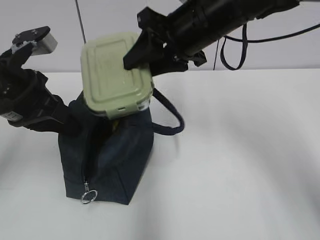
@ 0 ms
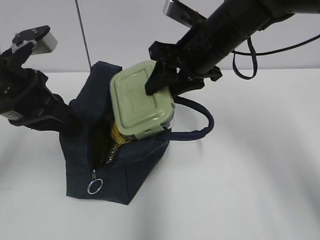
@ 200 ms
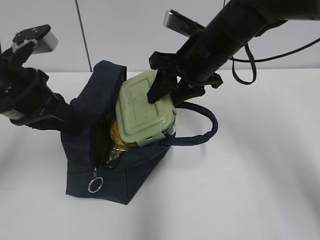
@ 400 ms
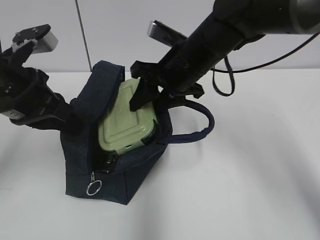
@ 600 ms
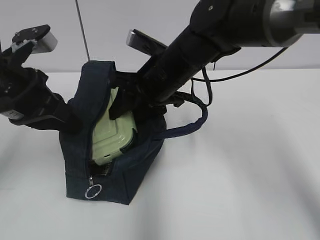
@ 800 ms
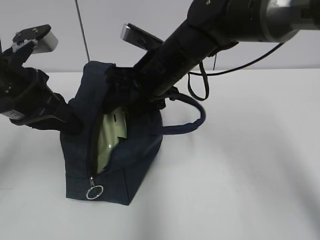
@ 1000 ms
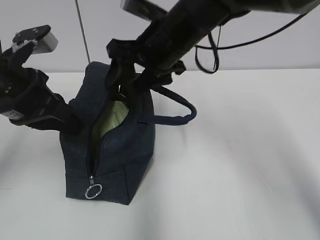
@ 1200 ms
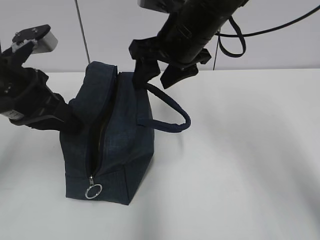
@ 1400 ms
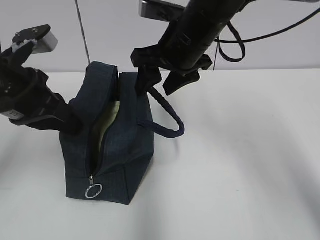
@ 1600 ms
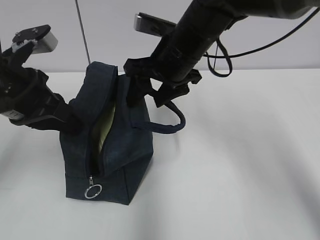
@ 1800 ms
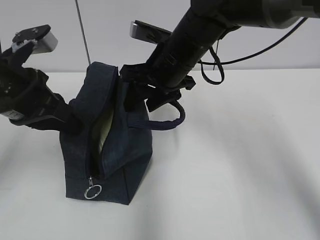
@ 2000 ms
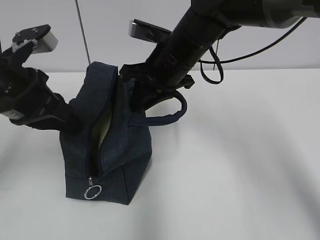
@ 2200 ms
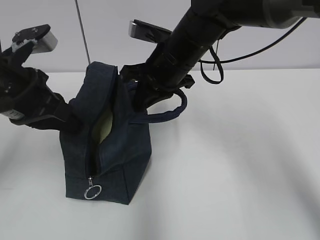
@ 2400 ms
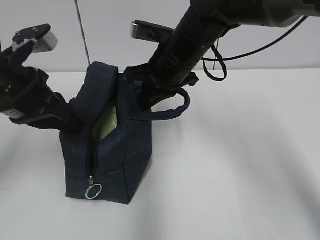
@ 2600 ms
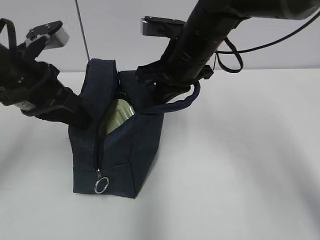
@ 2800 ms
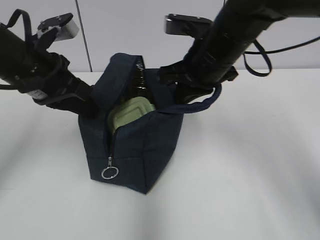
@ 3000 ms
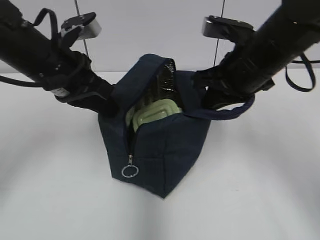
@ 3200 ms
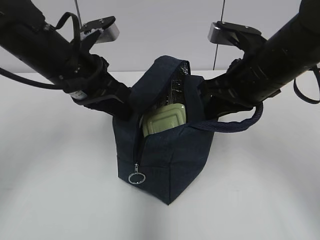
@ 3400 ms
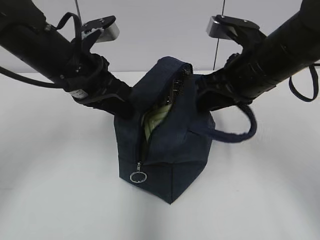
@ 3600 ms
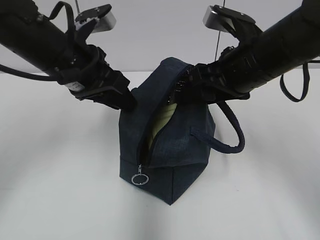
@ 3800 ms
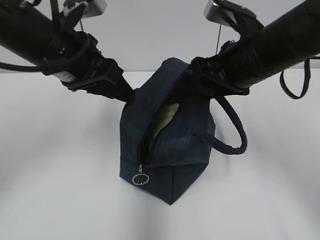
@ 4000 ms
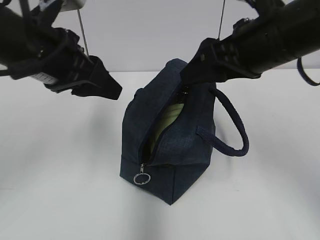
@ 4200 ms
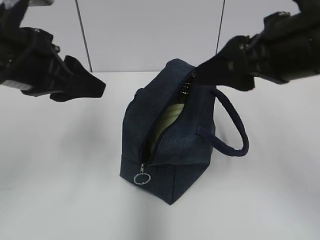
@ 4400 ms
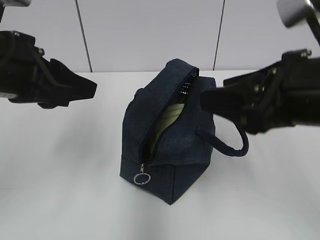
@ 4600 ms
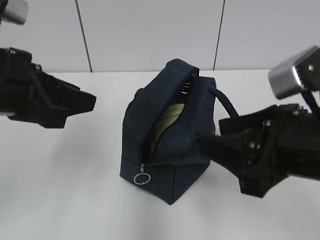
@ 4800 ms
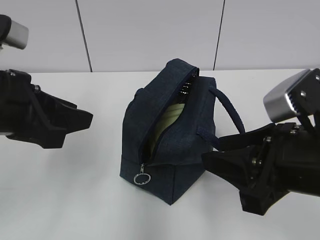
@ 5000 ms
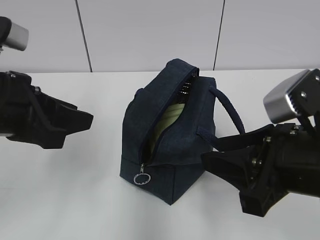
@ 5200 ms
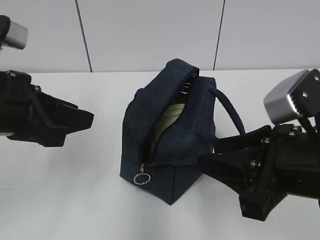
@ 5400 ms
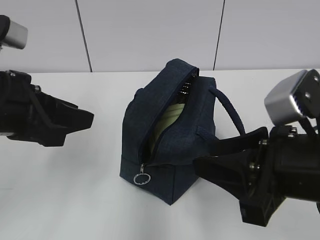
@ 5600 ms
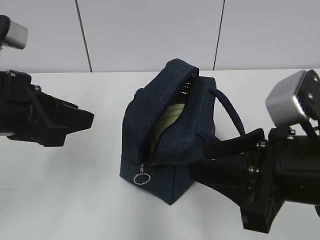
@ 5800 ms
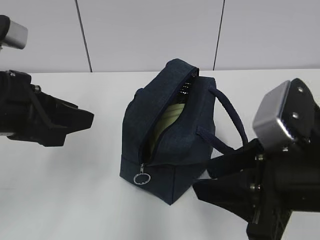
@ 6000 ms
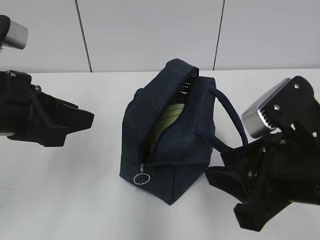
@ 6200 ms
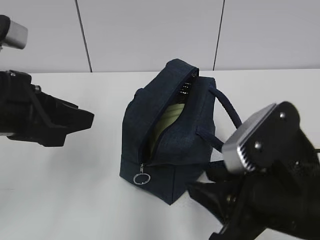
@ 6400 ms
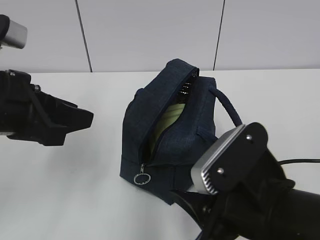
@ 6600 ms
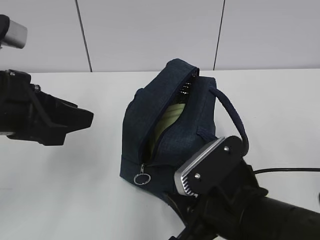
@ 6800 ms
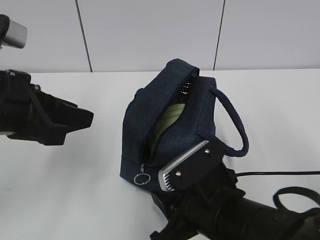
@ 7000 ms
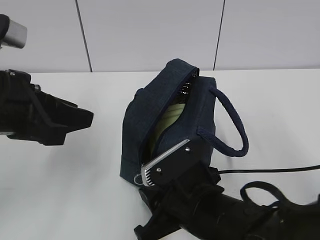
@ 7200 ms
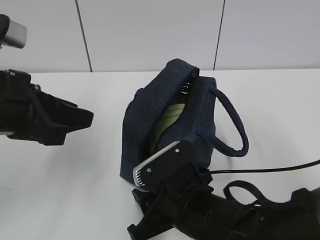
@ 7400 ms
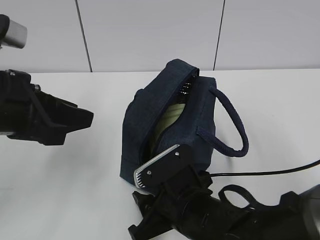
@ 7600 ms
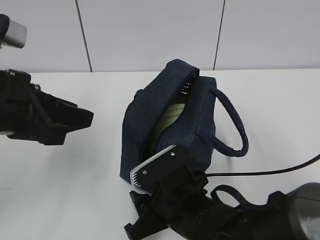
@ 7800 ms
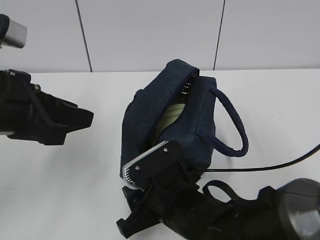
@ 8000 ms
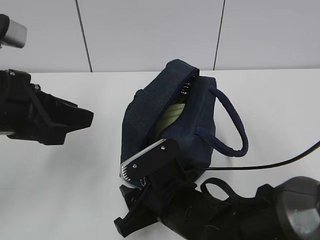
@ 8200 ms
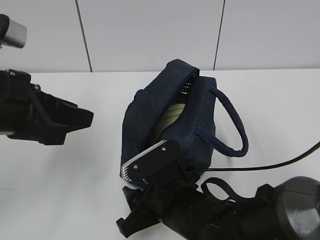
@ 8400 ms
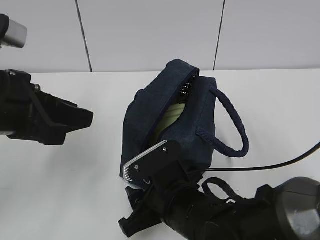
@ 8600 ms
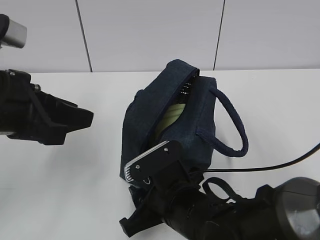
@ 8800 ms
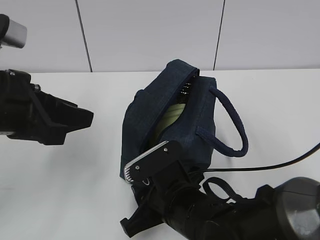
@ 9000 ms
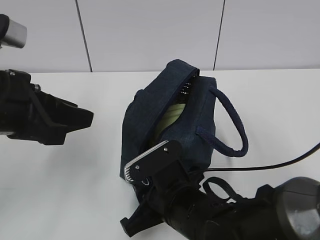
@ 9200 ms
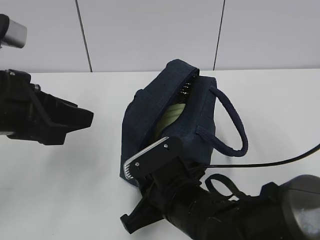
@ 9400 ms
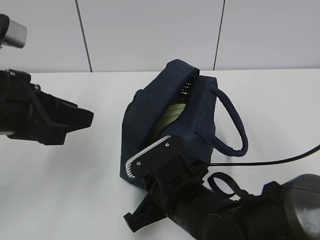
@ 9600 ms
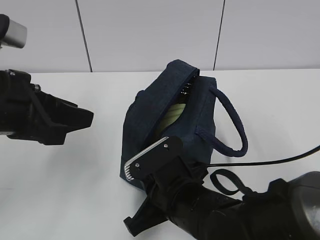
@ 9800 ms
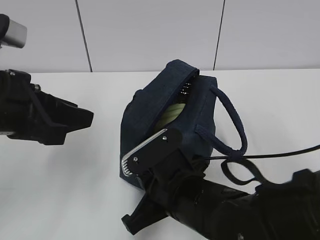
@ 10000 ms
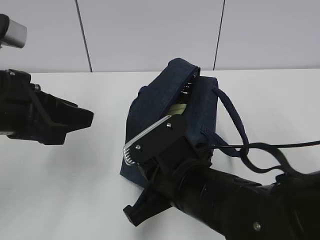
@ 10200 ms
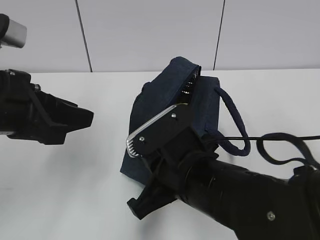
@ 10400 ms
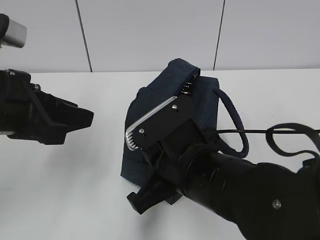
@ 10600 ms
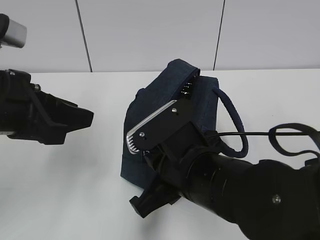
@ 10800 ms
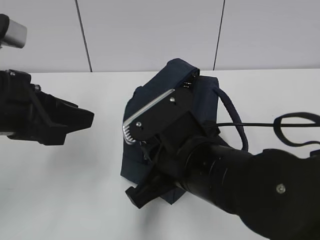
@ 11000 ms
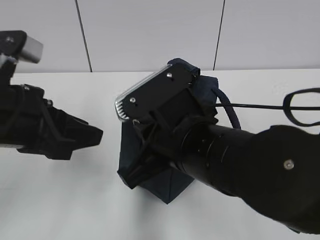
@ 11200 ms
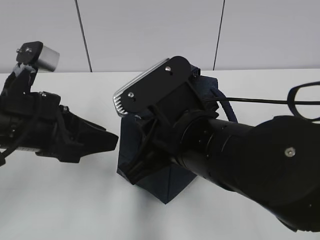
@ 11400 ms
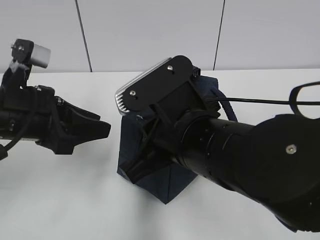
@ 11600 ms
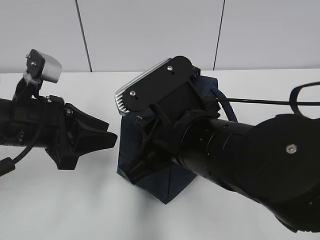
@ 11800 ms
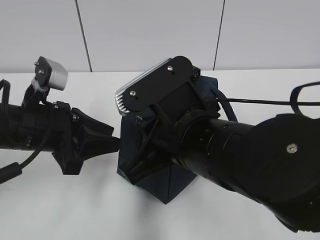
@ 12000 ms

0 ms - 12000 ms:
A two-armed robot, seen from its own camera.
1600 ms - 3000 ms: The right gripper closes its fingers.
3000 ms - 4400 ms: The right gripper is displaced backward, upward and to the right by approximately 15 cm, and opens up. Meanwhile the left gripper heads backward, covering some 5 cm, and opens its fingers.
4400 ms - 6000 ms: The right gripper travels downward and backward by roughly 10 cm; the left gripper moves approximately 5 cm.
6000 ms - 7600 ms: The right gripper travels downward and to the left by some 15 cm.
7600 ms - 9000 ms: The grippers make only small movements.
9000 ms - 10400 ms: The right gripper shifts approximately 10 cm upward, and closes up.
10400 ms - 12000 ms: The right gripper travels upward by approximately 5 cm. Meanwhile the left gripper goes roughly 5 cm downward.

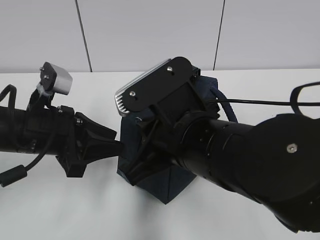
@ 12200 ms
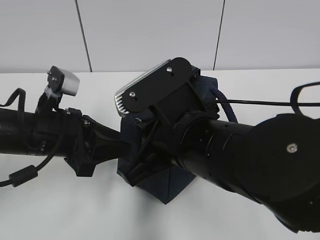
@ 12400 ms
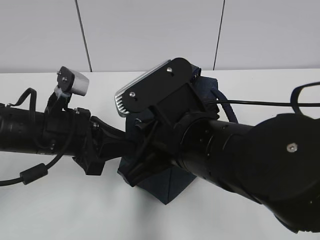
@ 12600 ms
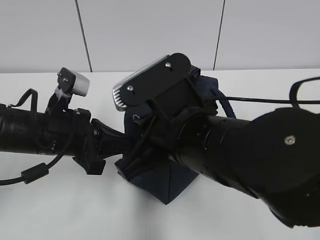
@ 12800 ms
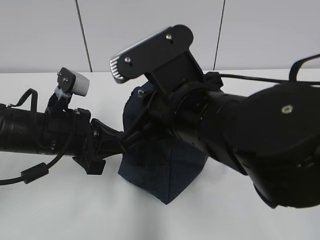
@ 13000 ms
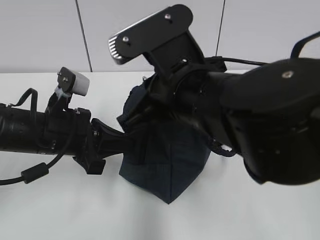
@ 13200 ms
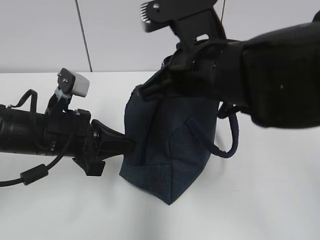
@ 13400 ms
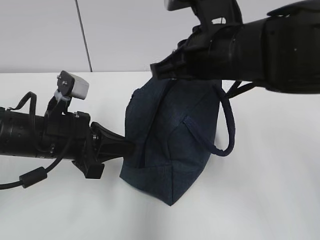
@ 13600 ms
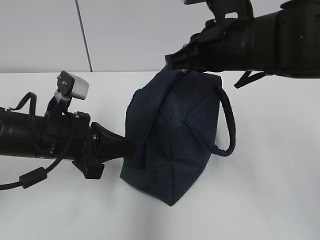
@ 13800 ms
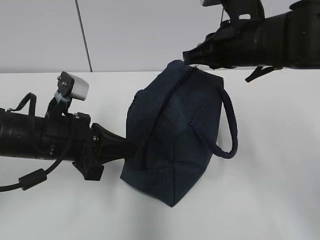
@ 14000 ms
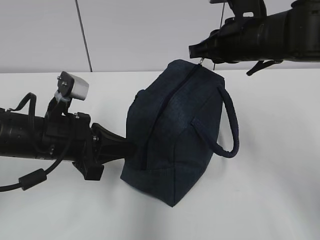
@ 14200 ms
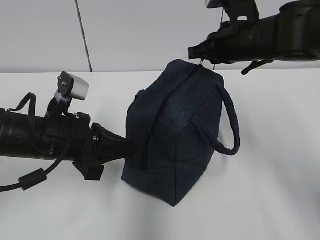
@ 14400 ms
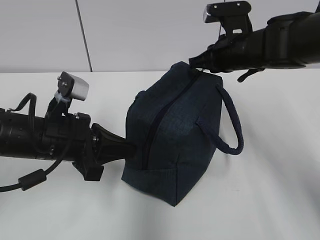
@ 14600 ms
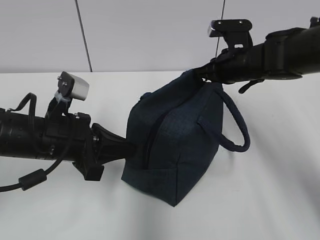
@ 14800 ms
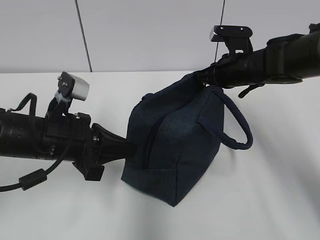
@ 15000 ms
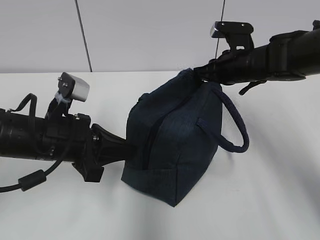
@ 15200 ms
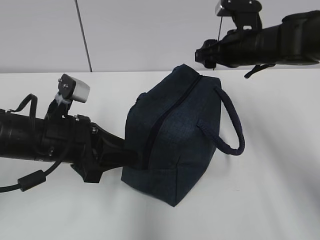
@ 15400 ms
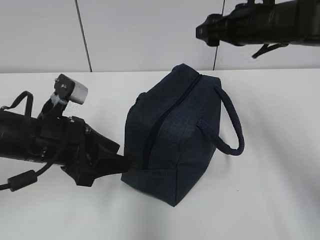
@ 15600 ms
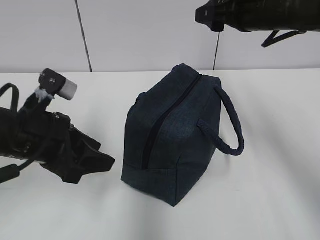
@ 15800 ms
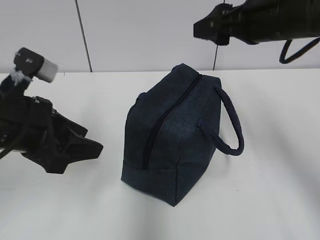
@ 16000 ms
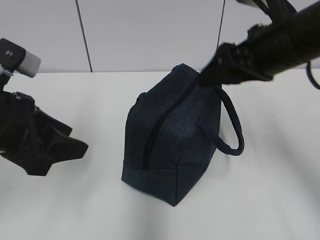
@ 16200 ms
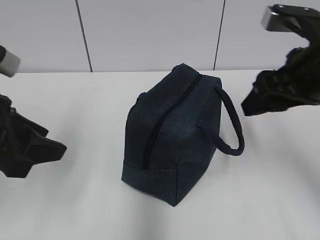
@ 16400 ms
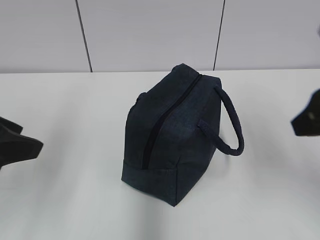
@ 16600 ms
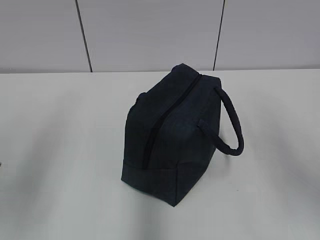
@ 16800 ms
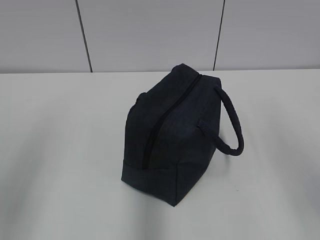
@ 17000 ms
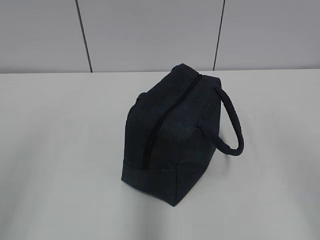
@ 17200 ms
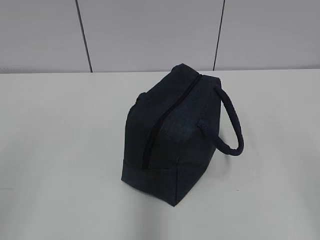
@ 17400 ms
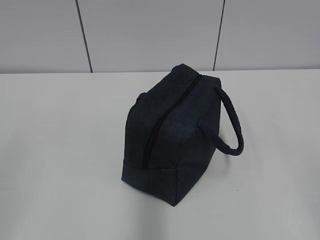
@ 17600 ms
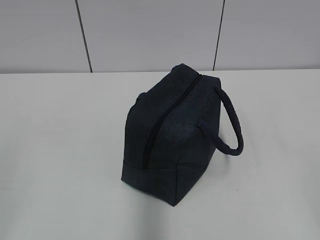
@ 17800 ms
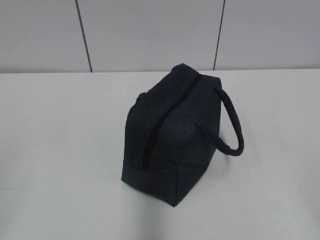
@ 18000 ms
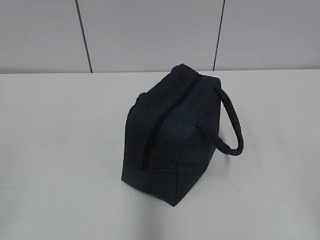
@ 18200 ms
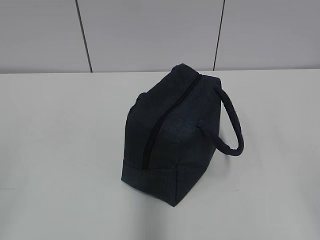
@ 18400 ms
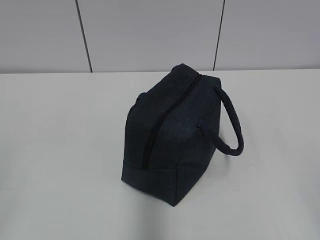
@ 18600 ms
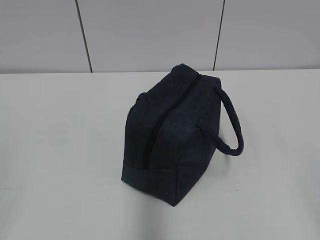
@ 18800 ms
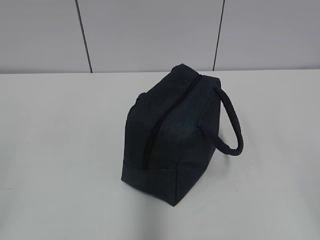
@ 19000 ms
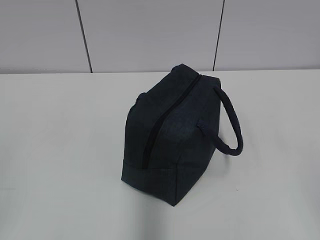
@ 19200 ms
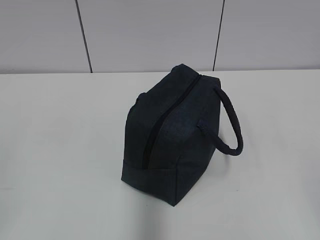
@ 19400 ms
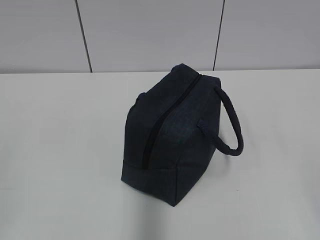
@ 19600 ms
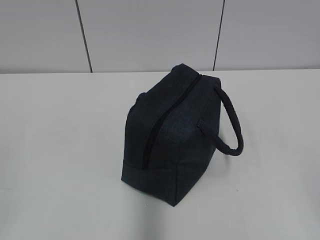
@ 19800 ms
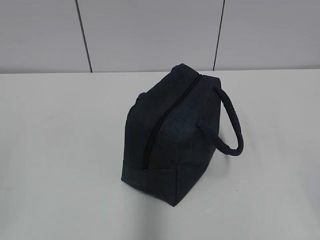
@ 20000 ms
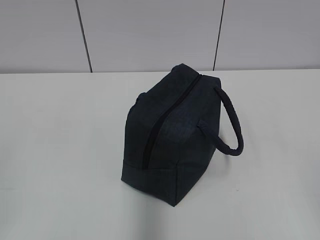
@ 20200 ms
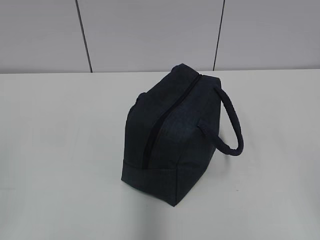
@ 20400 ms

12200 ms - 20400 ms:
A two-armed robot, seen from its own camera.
12200 ms - 13800 ms: The left gripper closes up; the right gripper is displaced forward, to the right and upward by about 15 cm.
13800 ms - 15400 ms: The right gripper travels forward, to the right and downward by approximately 15 cm, and opens its fingers; the left gripper opens.
15400 ms - 17200 ms: The right gripper goes about 35 cm backward, while the left gripper goes about 25 cm backward, upward and to the left.
